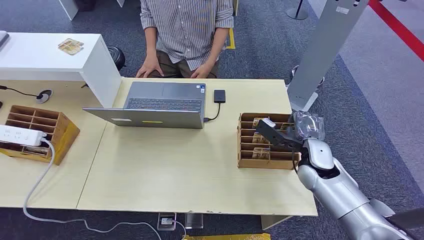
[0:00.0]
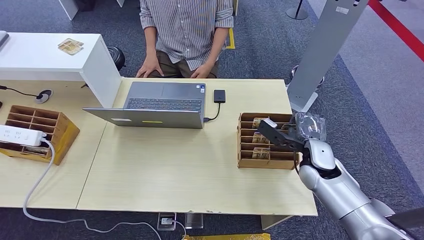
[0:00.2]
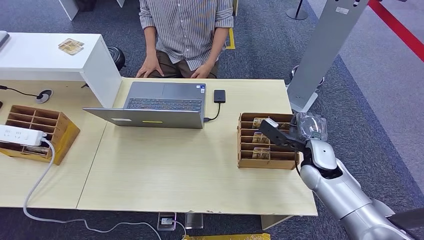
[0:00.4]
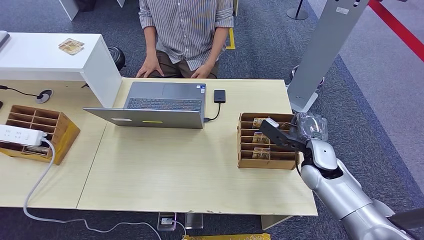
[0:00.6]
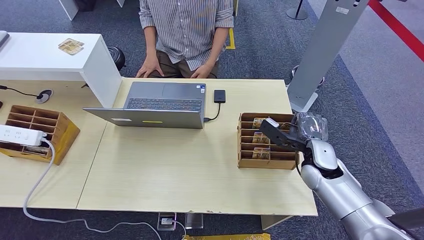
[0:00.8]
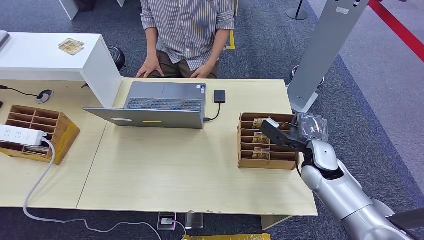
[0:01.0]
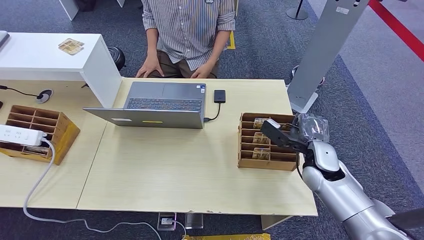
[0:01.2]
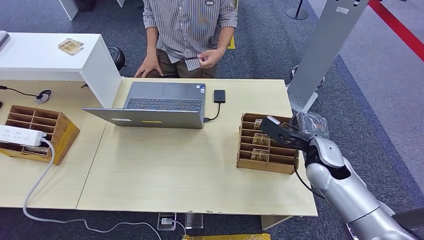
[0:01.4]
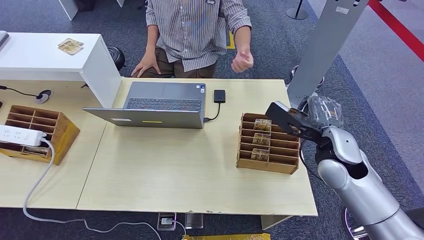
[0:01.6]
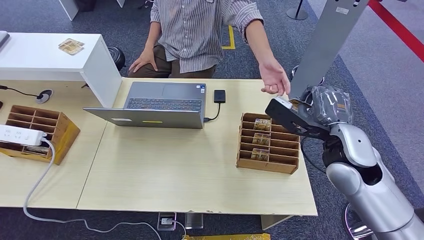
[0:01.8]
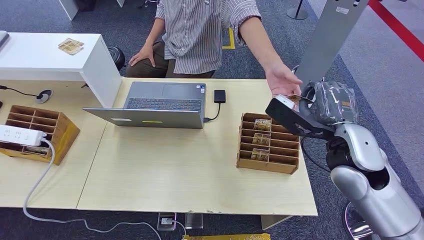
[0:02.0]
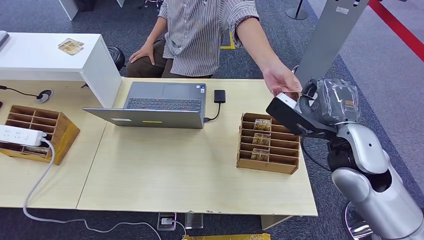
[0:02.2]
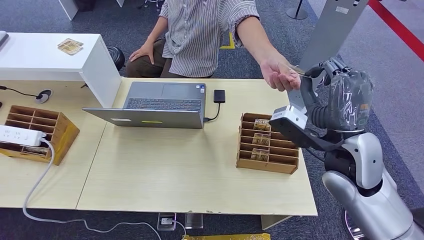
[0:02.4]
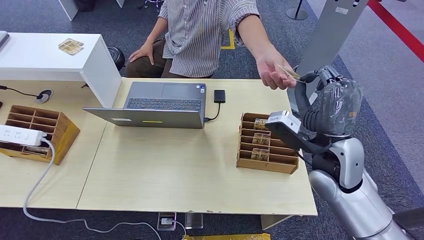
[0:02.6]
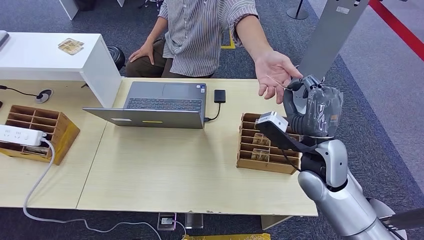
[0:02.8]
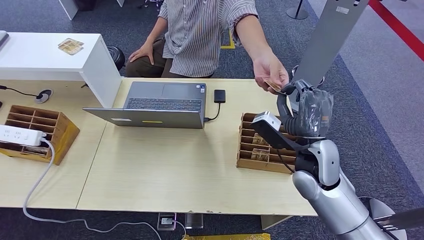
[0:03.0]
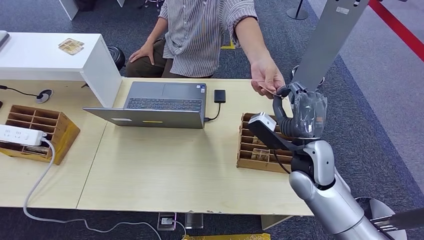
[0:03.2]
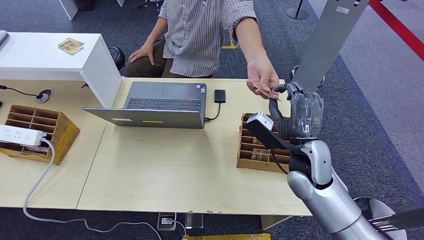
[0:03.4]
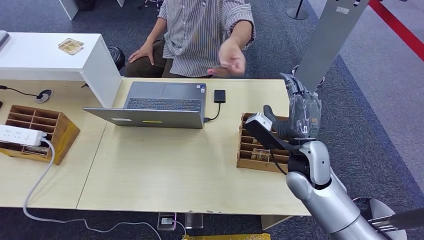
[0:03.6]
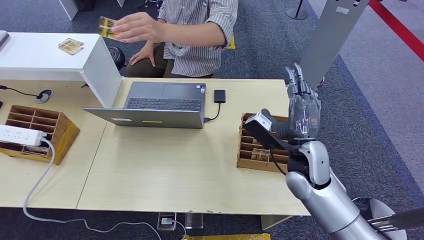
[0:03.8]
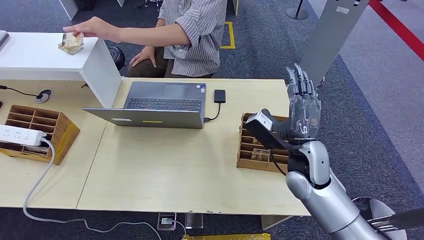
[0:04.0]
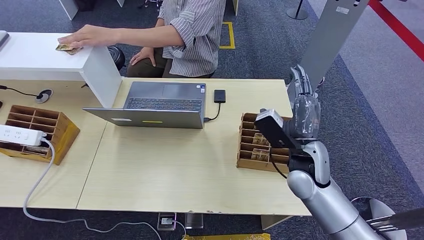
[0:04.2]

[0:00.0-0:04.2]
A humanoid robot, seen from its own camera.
Step, 0:00.0 to 0:01.6: Pick up the key card from the card box.
Step, 0:02.4 to 0:04.2: Hand the key card to the target.
0:01.4 to 0:02.8: The right hand is displaced upward by approximately 5 cm.
0:02.8 to 0:04.2: The hands move only a little.
